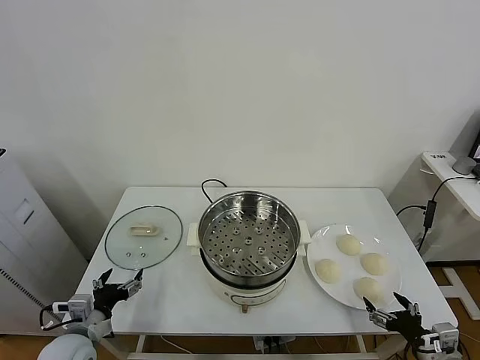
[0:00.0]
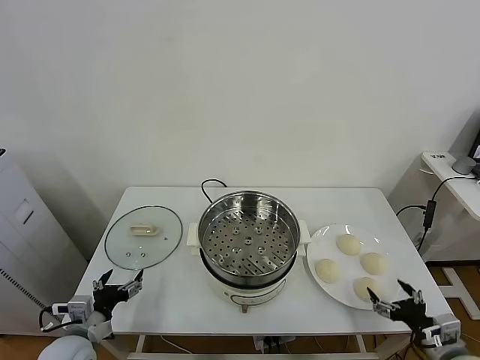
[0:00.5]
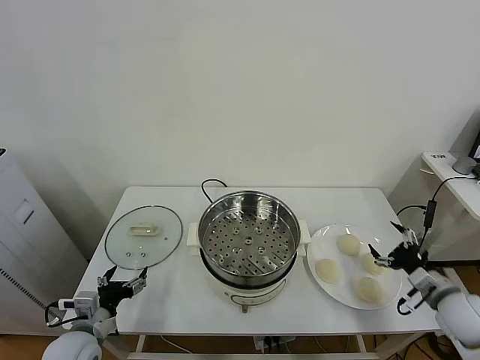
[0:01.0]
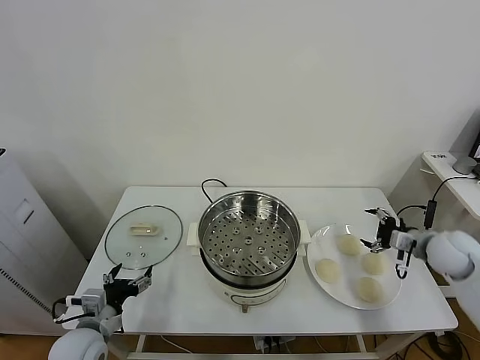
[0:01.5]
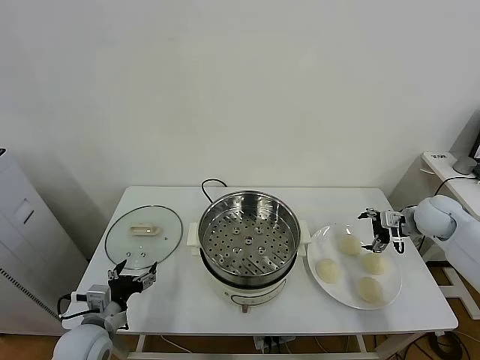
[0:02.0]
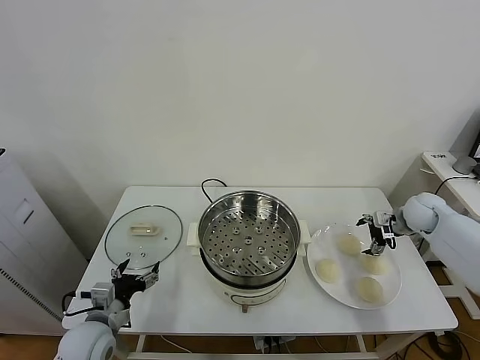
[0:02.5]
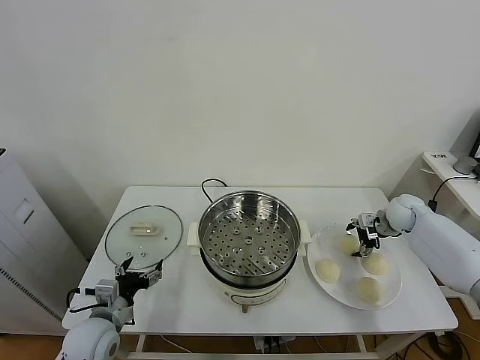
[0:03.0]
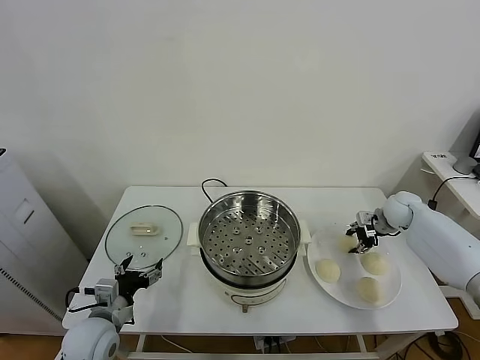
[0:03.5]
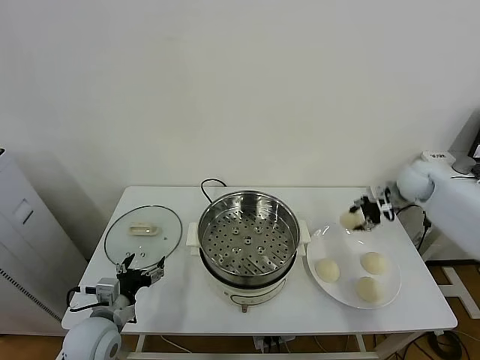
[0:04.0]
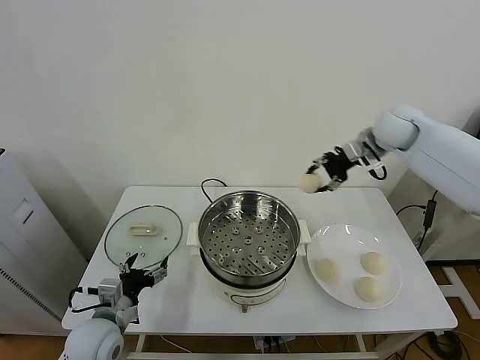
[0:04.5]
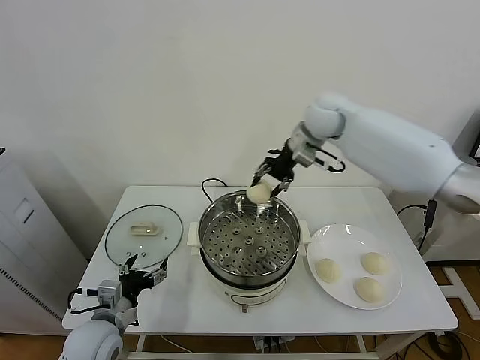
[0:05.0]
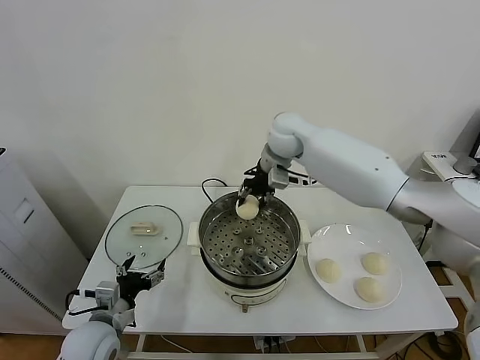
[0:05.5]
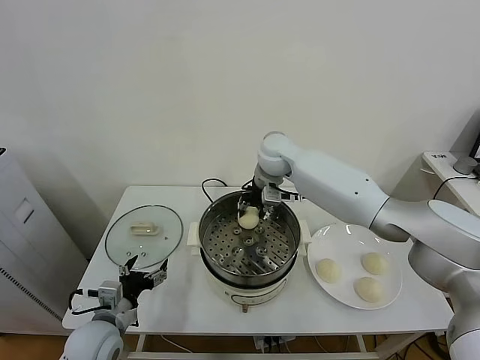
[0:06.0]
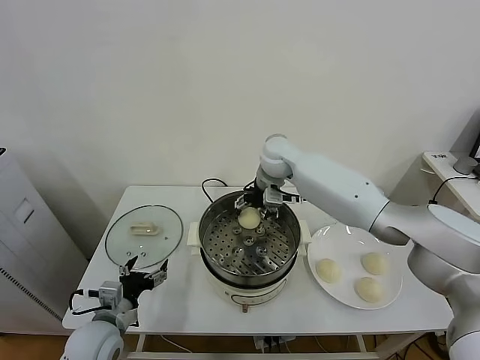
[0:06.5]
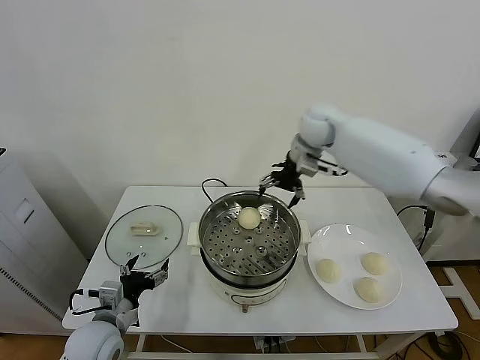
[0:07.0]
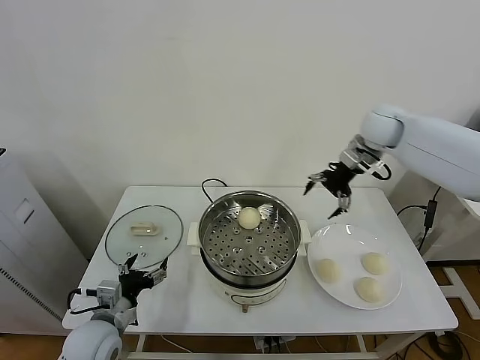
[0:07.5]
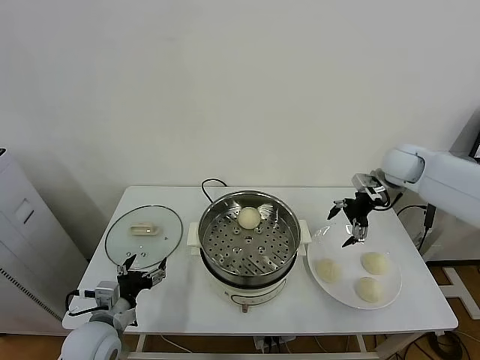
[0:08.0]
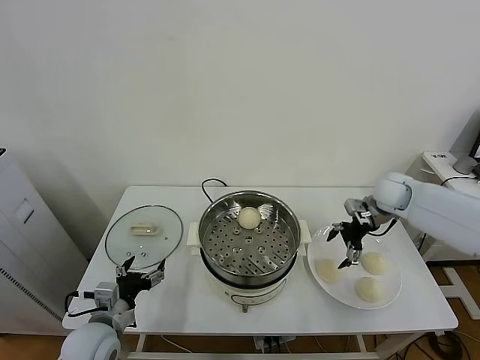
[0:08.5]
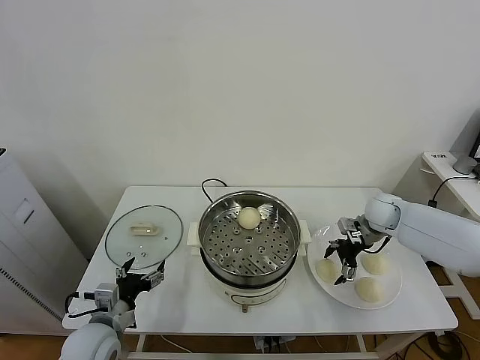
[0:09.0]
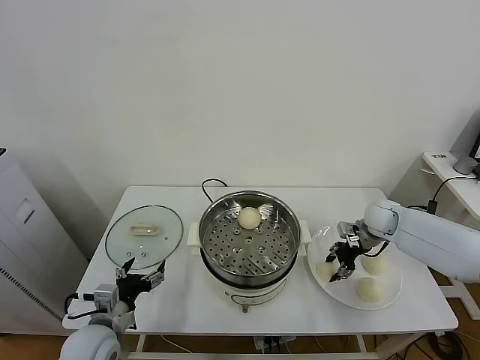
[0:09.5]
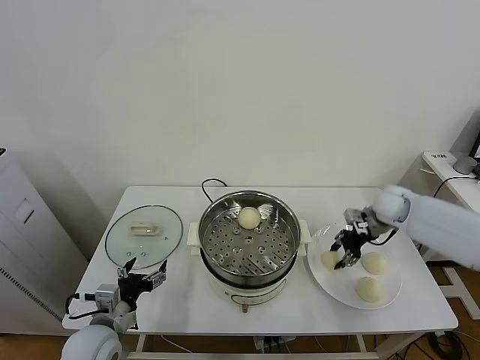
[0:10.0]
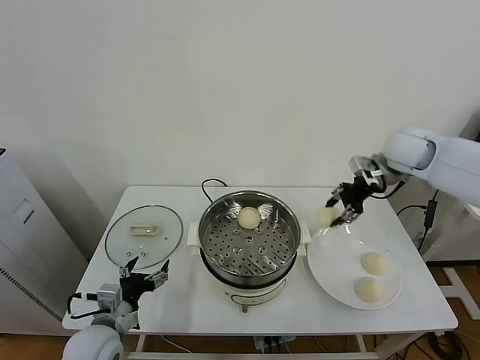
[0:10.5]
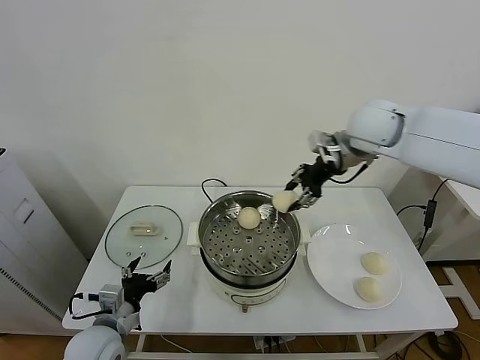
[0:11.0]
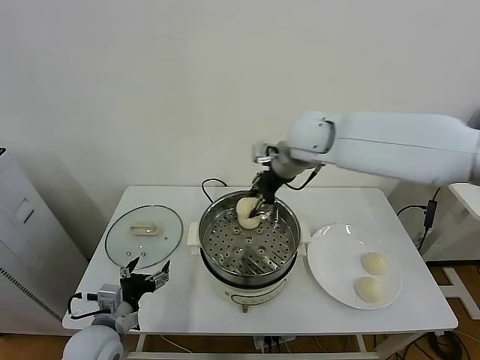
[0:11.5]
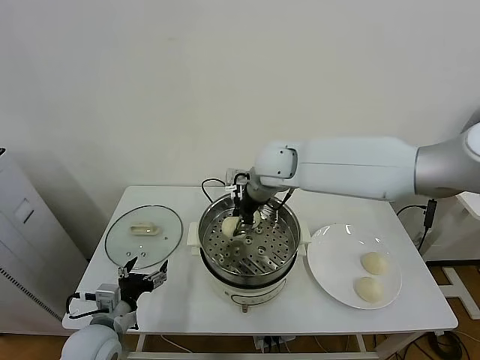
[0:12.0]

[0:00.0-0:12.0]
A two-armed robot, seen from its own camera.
Task of the whole recording: take steamed baozi put them in steamer.
Step, 0.0 to 3.0 s: Grasp the baozi in the plate with right gripper.
Step, 3.5 to 6.5 s: Place the baozi on the steamer with right gripper.
Step, 7.0 to 9.5 s: Grasp the baozi in the plate with right gripper.
2.0 to 4.0 s: The right gripper goes about 10 cm upward and forward, and closes.
4.0 to 6.0 s: The right gripper travels to the left by some 35 cm.
6.0 to 8.0 s: The right gripper goes about 30 cm to the right, and opens its fingers.
8.0 to 10.0 s: The right gripper goes roughly 5 cm downward, and closes its fingers.
10.0 to 12.0 s: The right gripper shifts about 30 cm to the left.

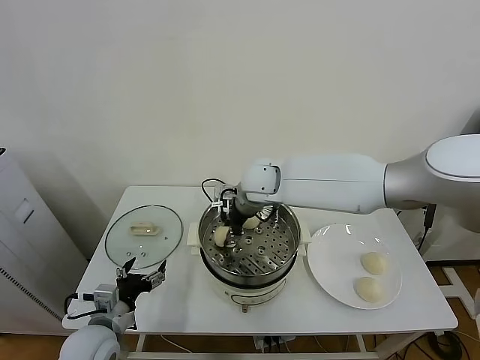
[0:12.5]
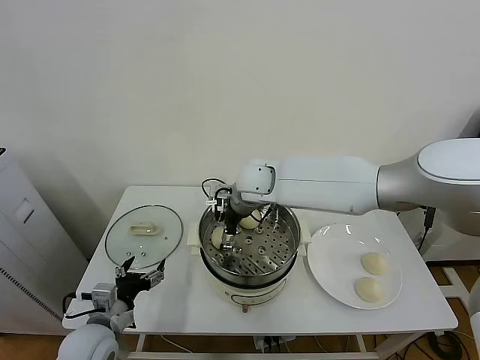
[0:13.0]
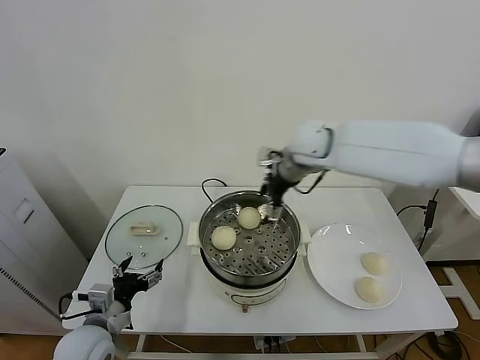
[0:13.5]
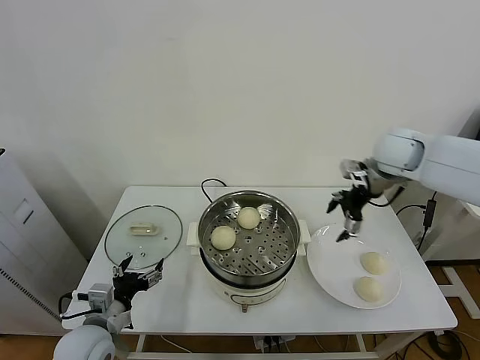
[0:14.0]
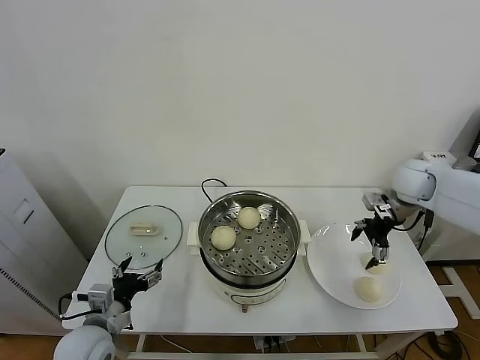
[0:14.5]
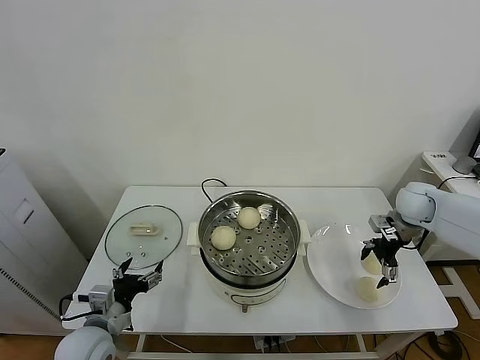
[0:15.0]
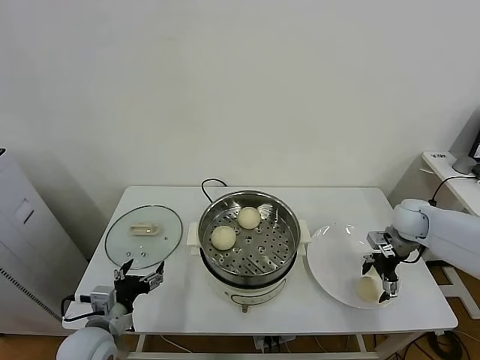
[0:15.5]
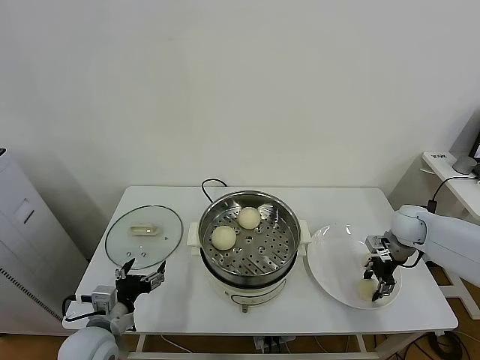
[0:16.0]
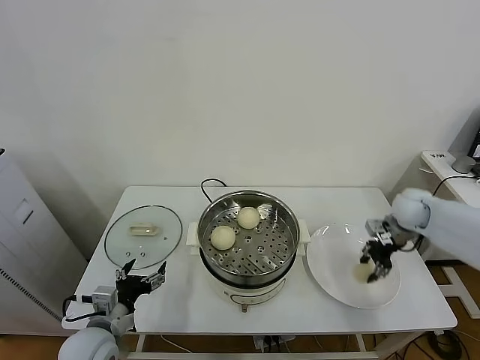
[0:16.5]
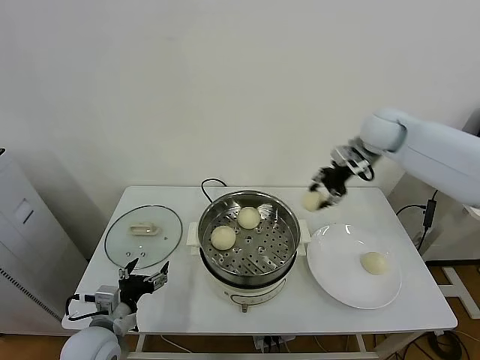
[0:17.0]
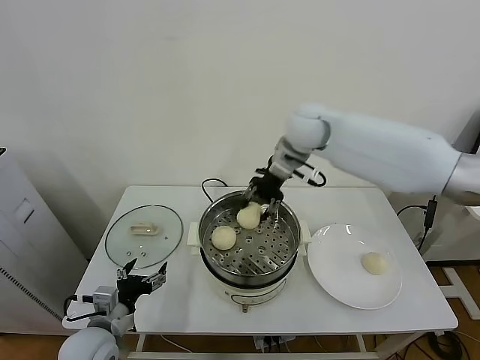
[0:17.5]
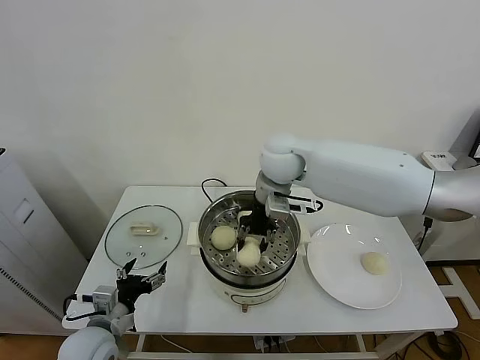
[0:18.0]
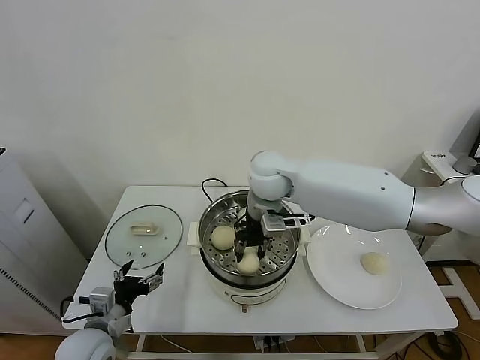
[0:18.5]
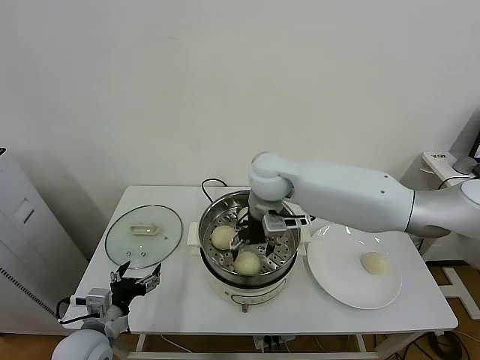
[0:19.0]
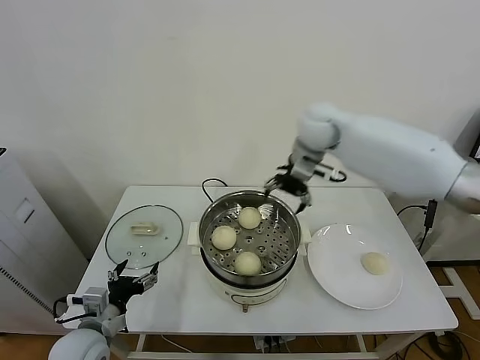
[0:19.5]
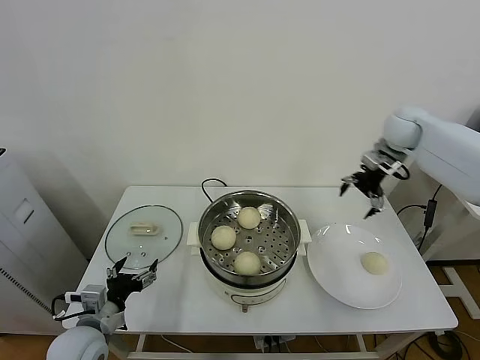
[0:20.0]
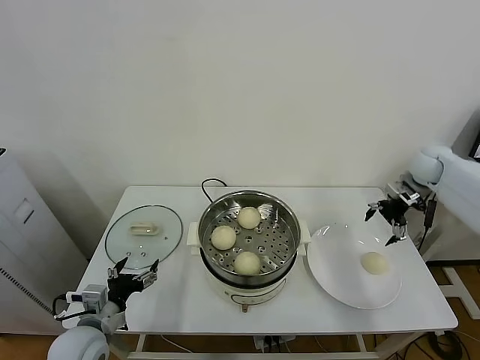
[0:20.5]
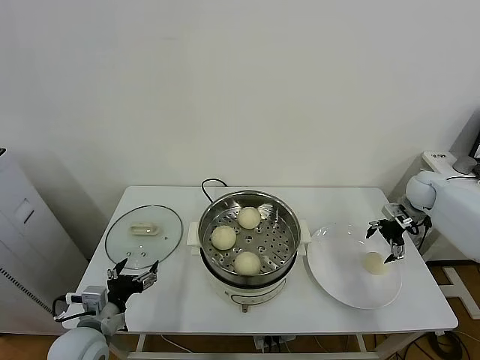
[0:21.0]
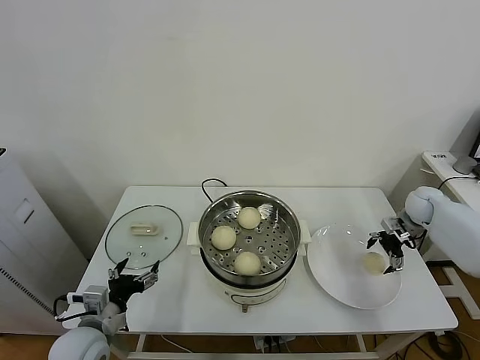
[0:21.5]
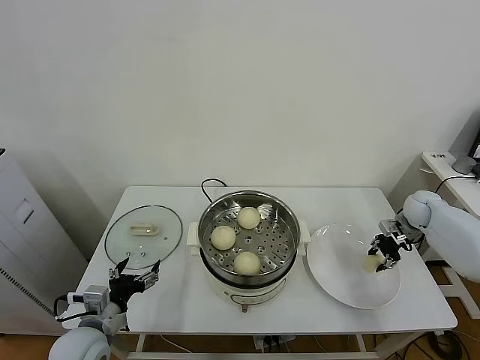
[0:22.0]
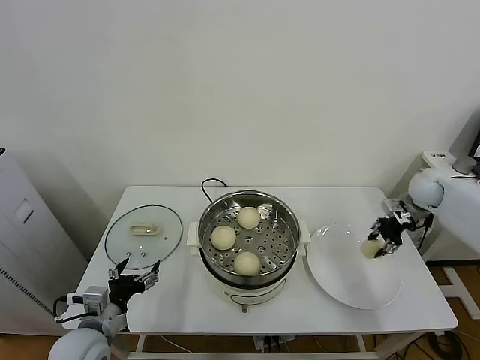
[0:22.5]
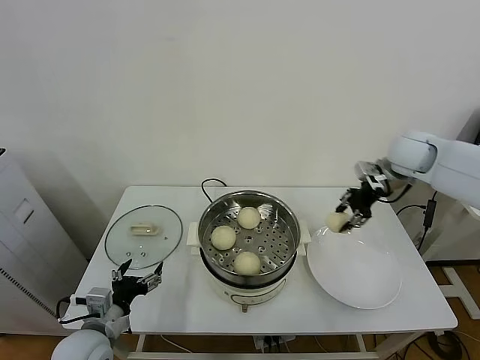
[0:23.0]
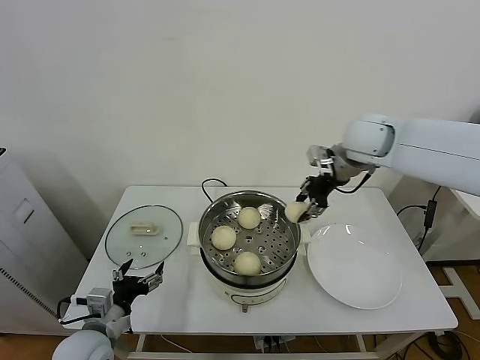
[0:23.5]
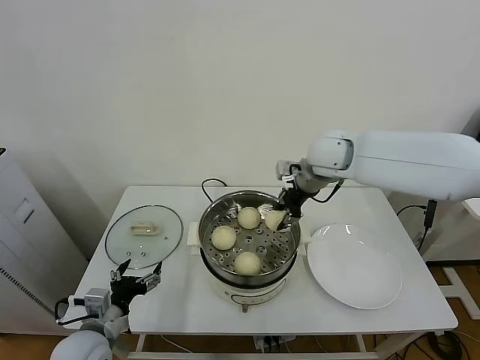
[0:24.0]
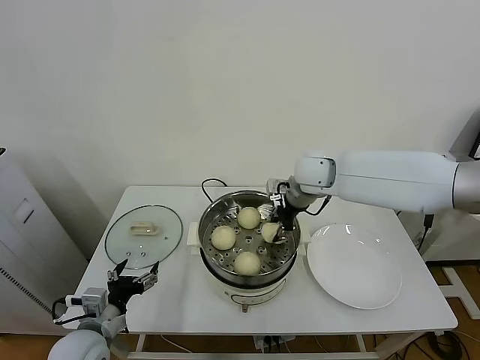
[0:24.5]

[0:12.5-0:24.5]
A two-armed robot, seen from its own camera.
Task of the whole recording: take steamed baozi put them in steamer.
Step, 13.5 to 16.0 s: Grasp the baozi in the plate with right gripper.
Step, 16.5 to 19.0 s: Place the baozi on the steamer with right gripper.
Step, 19.5 to 22.0 s: Grasp the baozi in the plate with right gripper.
12.5 to 14.5 s: The right gripper is displaced to the right by approximately 35 cm, and opens up.
14.5 to 16.5 s: The right gripper moves downward, some 5 cm, and closes.
16.5 to 18.5 s: The right gripper heads to the left, covering roughly 35 cm.
18.5 to 20.5 s: The right gripper heads to the right, covering approximately 40 cm, and opens up.
20.5 to 22.5 s: The right gripper travels downward and back again, roughly 10 cm each way, and closes its fingers.
22.5 to 24.5 s: The right gripper is displaced to the left by about 30 cm.

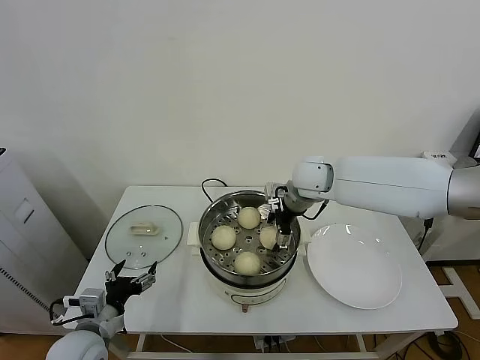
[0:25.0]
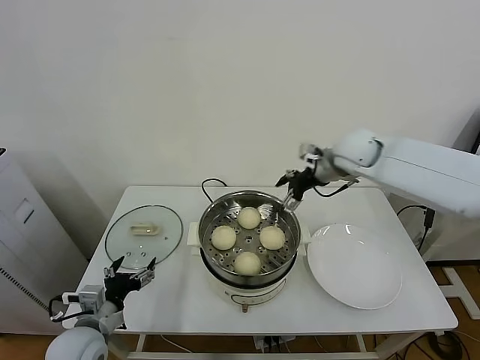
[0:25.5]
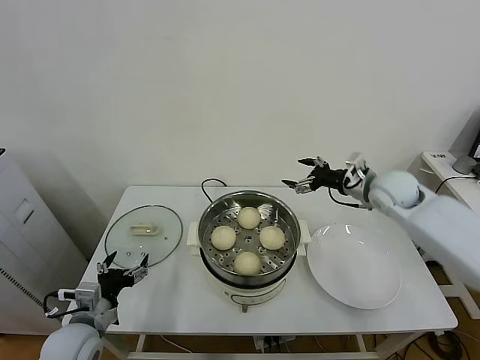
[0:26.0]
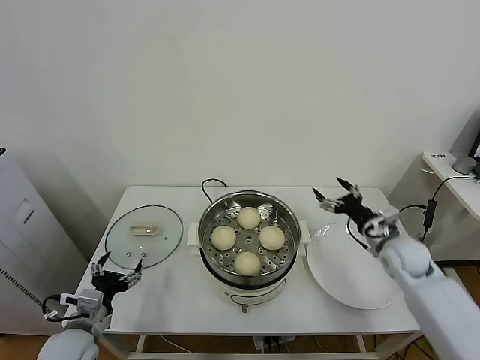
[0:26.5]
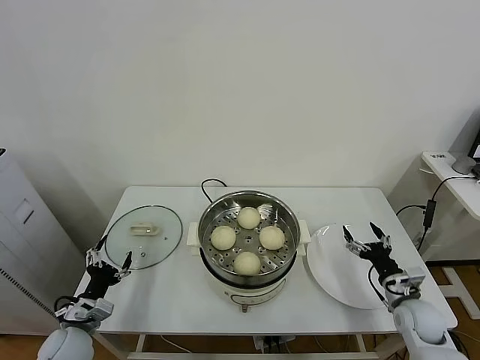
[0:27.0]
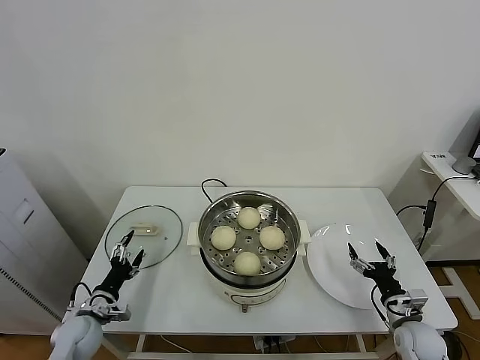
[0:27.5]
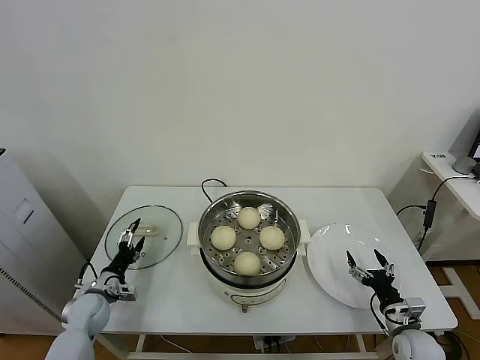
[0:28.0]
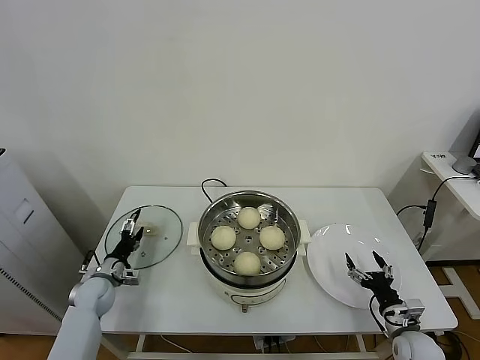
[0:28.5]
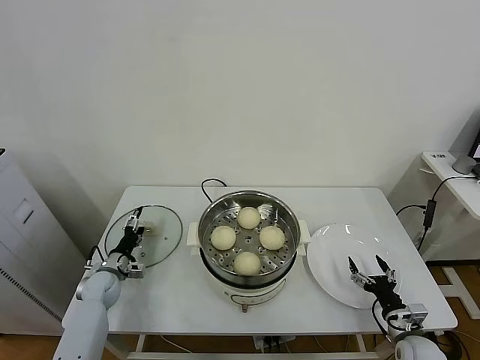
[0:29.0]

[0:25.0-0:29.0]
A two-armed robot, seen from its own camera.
Task of the whole recording: take steamed baozi put them in steamer.
25.0 to 27.0 s: The right gripper is displaced downward, to the right and backward by some 40 cm. Meanwhile the left gripper goes some 10 cm downward and to the left.
27.0 to 29.0 s: The right gripper goes approximately 10 cm downward and backward. The left gripper heads forward and downward, covering approximately 20 cm.
